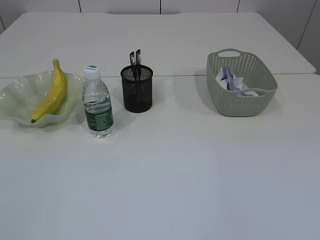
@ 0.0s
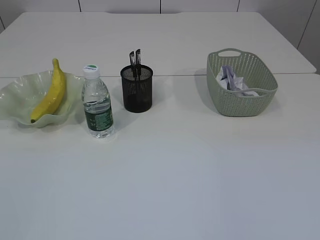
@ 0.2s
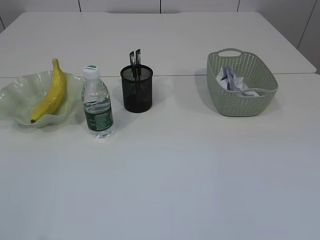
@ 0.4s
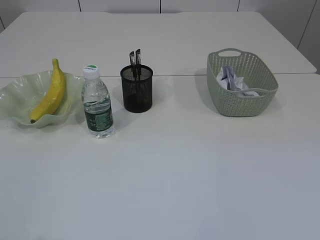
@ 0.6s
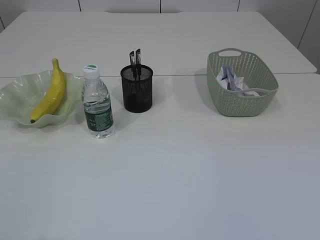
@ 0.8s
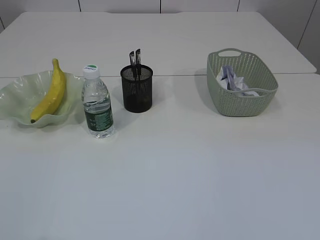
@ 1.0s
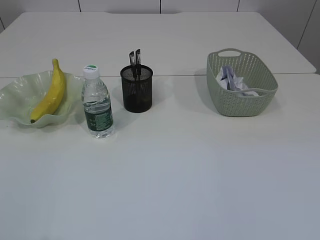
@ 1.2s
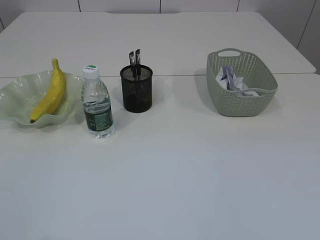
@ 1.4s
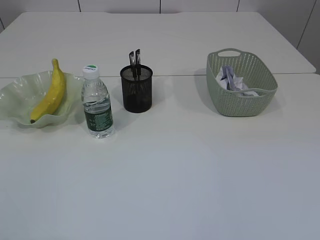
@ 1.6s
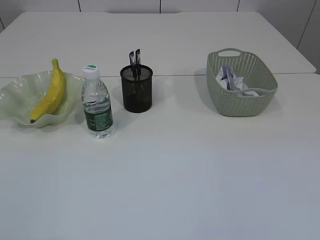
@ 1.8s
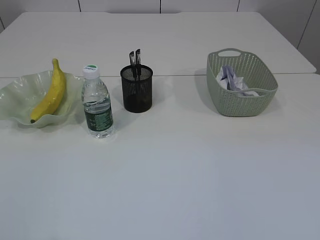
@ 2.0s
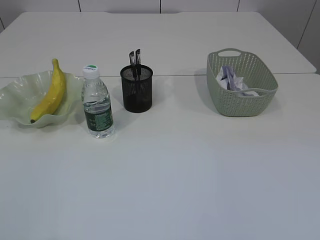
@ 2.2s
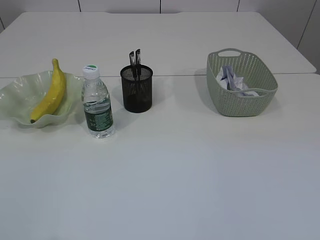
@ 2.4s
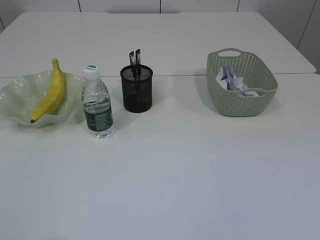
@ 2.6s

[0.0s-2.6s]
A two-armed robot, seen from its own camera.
1.2s to 2.6s: Neither gripper changes place.

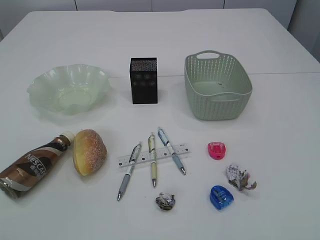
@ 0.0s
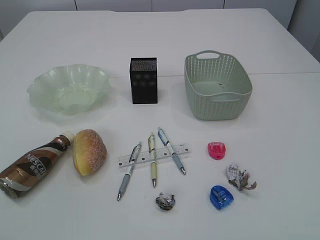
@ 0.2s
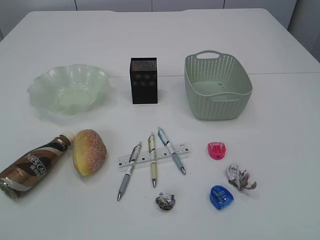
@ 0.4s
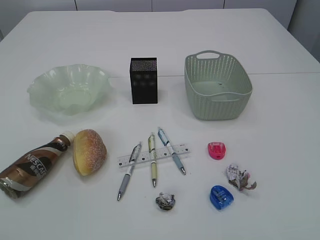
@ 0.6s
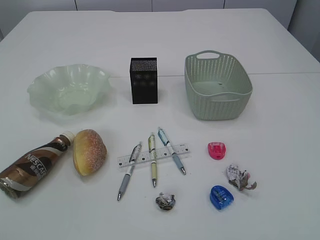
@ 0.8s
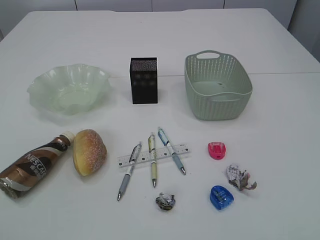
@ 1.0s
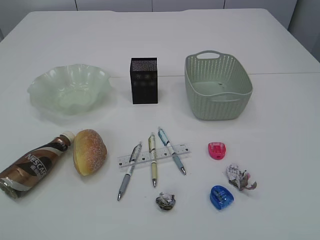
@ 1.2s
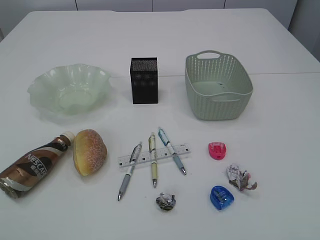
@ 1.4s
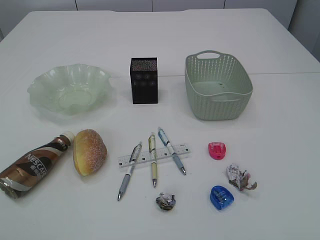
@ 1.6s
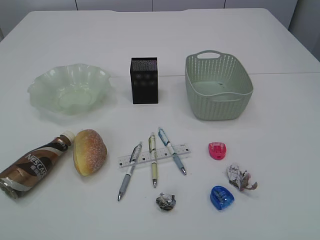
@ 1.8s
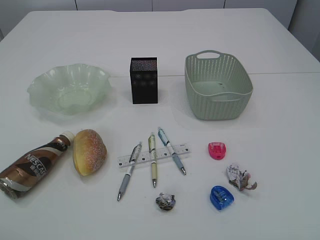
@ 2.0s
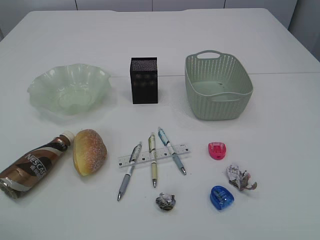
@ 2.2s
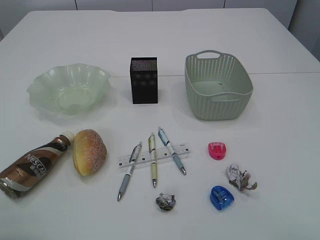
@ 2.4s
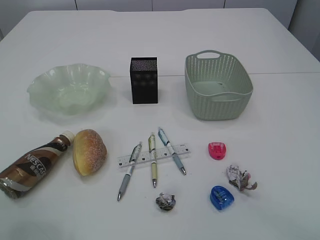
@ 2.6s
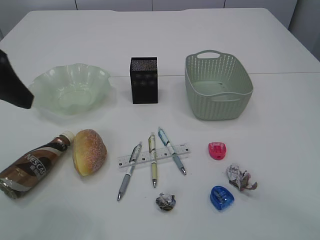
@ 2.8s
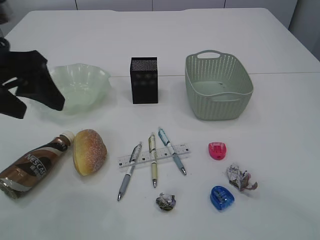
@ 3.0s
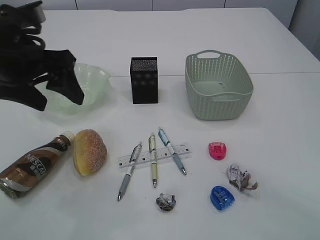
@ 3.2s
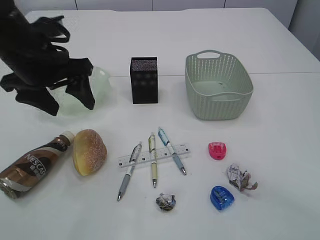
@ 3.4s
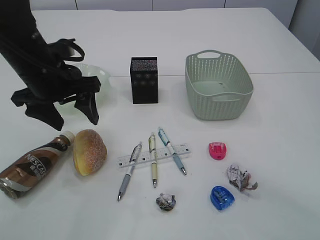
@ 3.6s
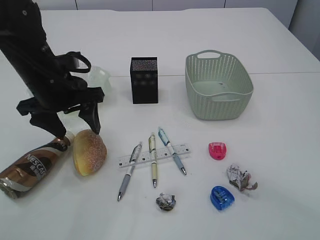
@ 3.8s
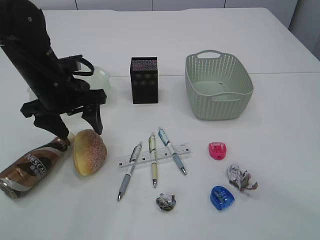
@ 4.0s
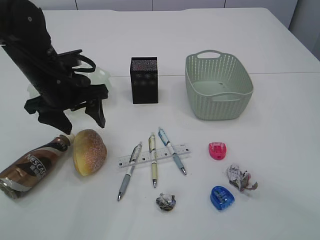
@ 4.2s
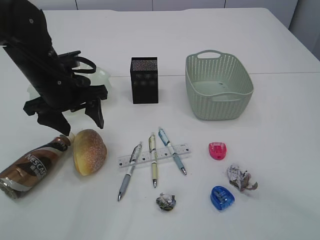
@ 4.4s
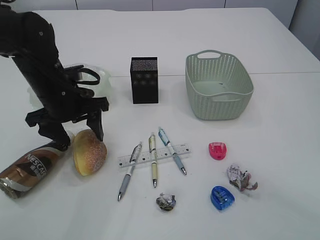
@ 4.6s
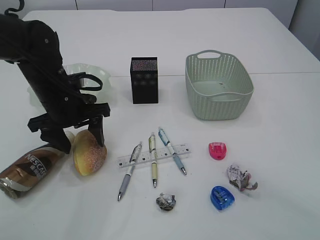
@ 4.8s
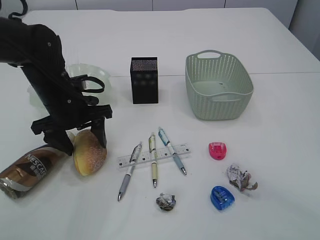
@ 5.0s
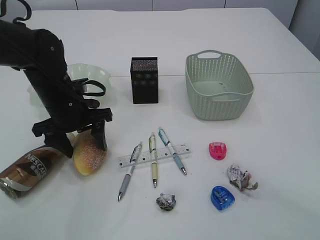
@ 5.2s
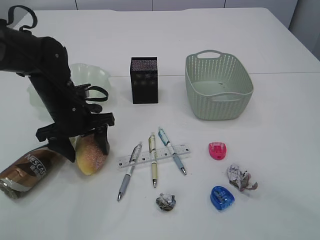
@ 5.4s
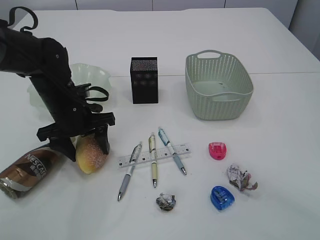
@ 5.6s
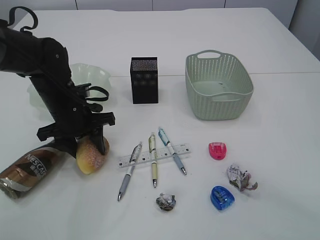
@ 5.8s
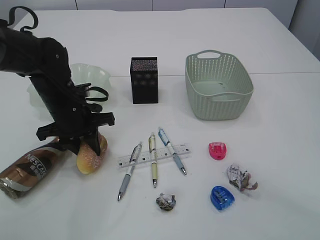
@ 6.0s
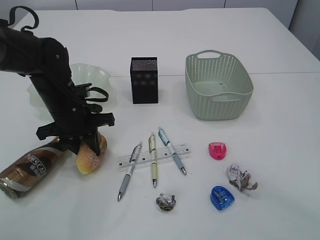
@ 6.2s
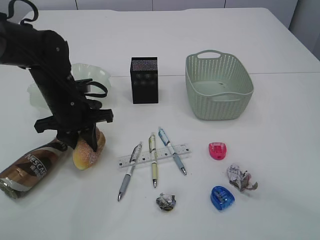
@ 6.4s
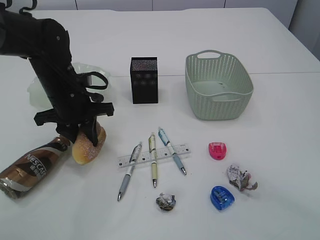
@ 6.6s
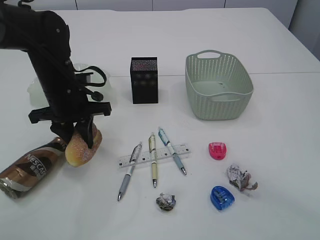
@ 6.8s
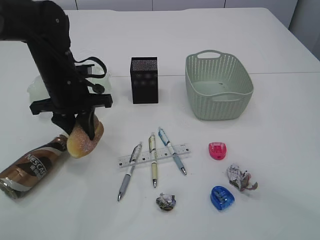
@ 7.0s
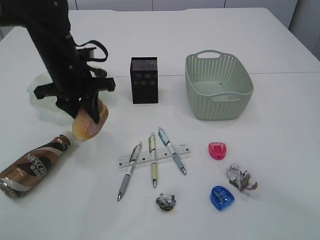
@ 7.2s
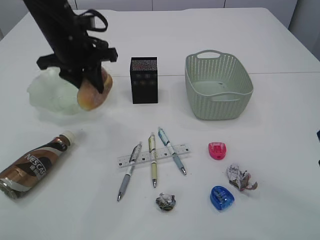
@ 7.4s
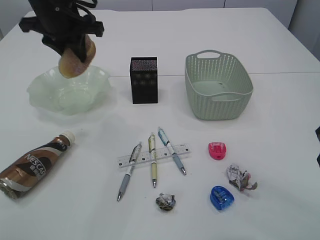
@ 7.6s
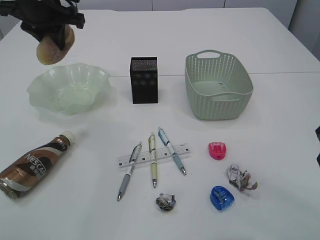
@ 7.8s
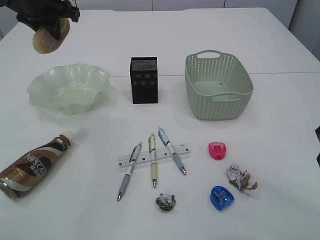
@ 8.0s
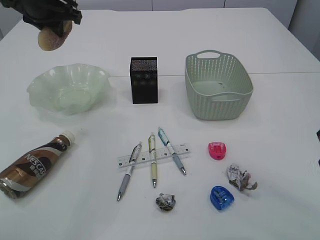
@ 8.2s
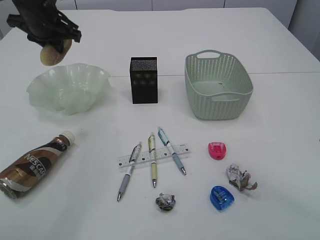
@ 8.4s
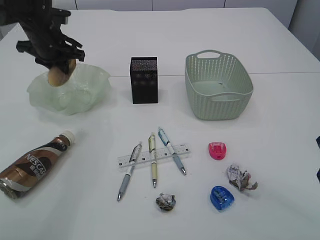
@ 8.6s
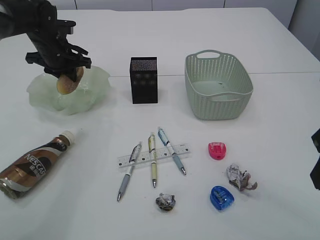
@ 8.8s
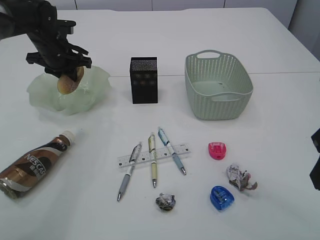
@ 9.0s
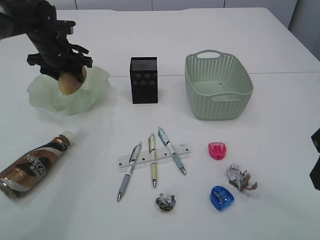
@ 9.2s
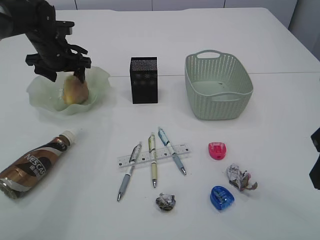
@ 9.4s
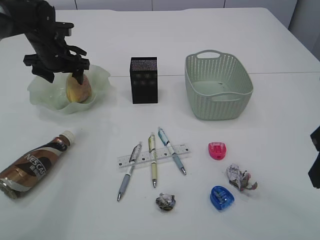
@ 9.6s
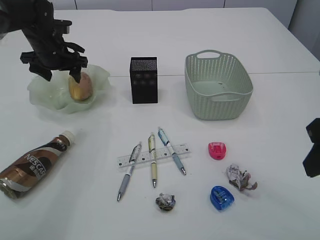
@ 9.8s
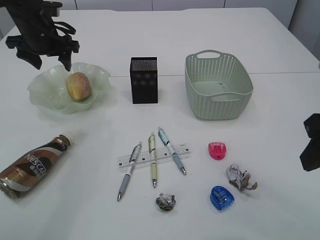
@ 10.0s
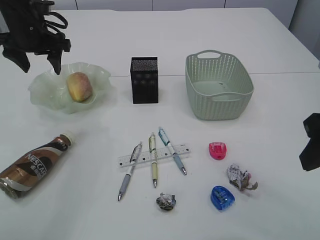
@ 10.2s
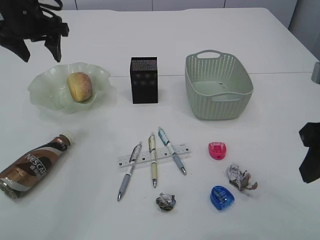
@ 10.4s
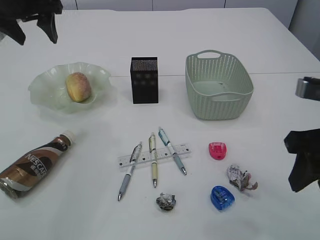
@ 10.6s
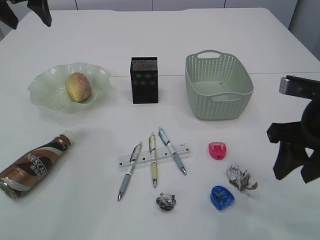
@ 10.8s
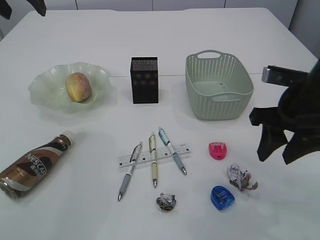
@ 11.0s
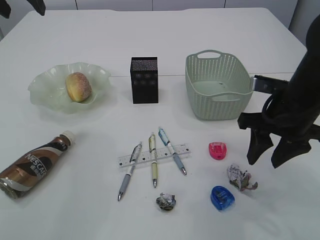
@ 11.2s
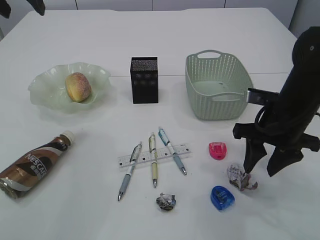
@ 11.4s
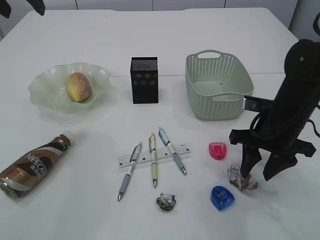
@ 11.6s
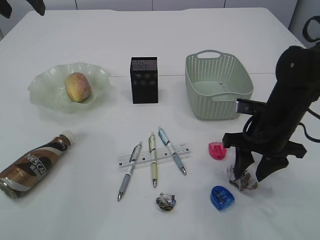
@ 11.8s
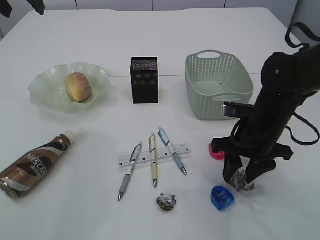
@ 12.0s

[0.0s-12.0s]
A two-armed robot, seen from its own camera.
Step, 7.4s to 10.2s: place the bread in the plate.
1.6s to 3.0s: The left gripper travels forward and to the right by about 20 cm, and opens its fingers.
3.0s to 4.4s: The left gripper goes some 15 cm downward and forward.
4.4s to 6.0s: The left gripper moves downward, approximately 5 cm, and closes up.
6.0s to 7.6s: The left gripper goes some 15 cm upward.
7.6s to 9.0s: The left gripper is displaced downward, forward and to the left by approximately 15 cm.
9.0s to 10.4s: The left gripper moves upward and backward, about 10 cm, and opens up.
10.4s to 12.0s: The right gripper is displaced downward and forward by some 20 cm; the left gripper heads upward, covering approximately 10 cm.

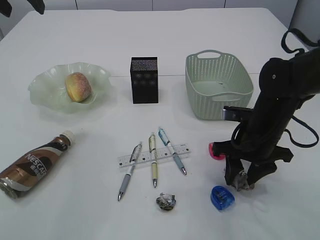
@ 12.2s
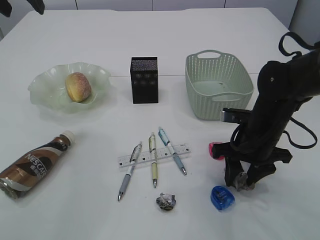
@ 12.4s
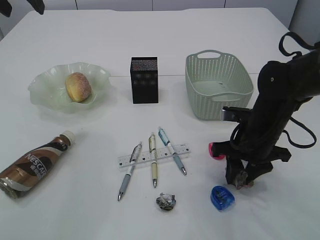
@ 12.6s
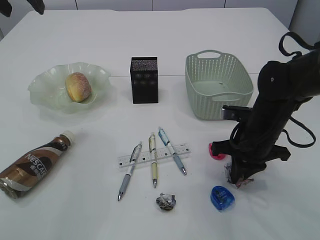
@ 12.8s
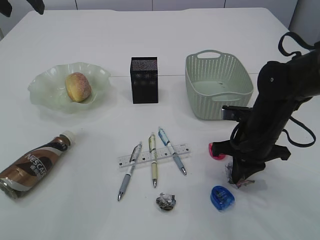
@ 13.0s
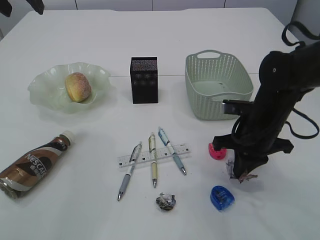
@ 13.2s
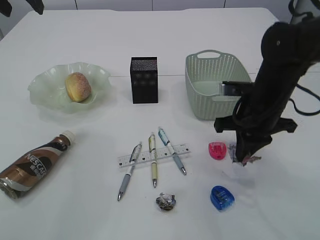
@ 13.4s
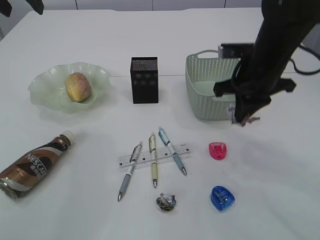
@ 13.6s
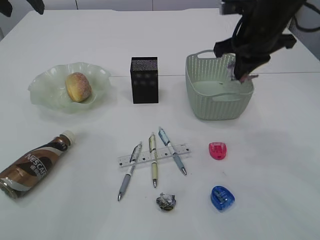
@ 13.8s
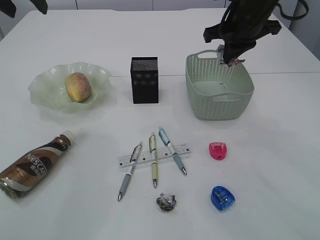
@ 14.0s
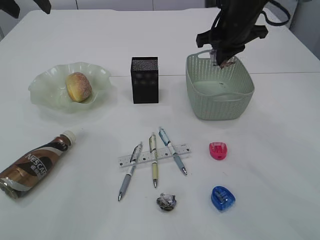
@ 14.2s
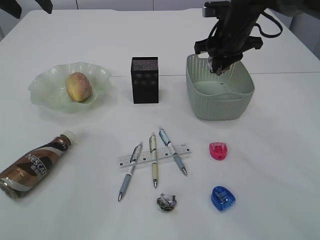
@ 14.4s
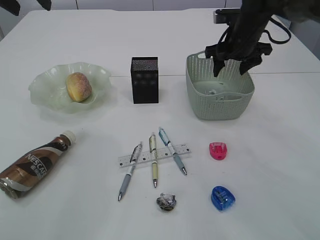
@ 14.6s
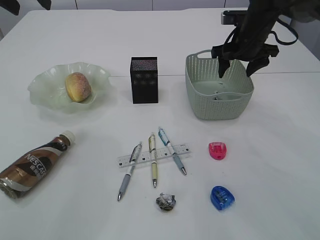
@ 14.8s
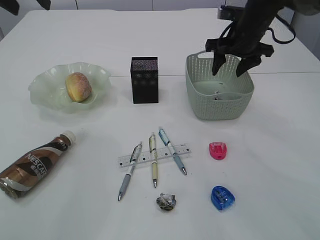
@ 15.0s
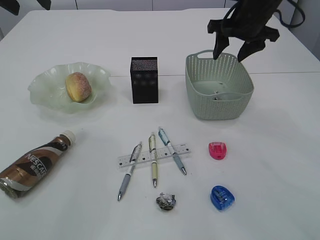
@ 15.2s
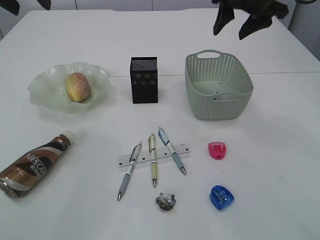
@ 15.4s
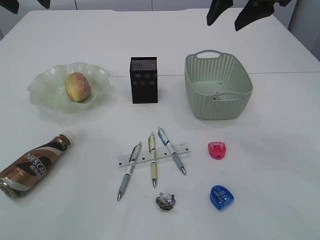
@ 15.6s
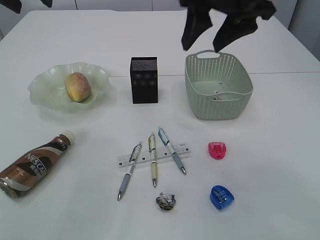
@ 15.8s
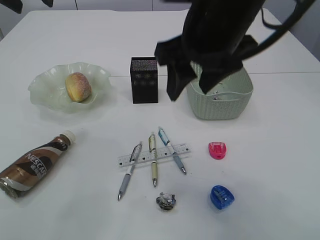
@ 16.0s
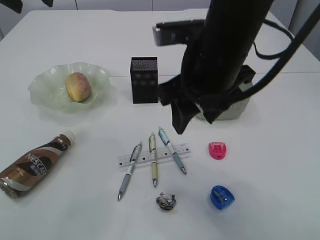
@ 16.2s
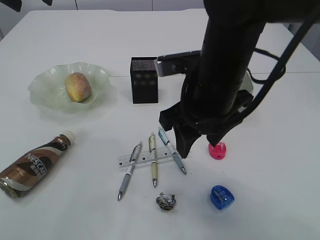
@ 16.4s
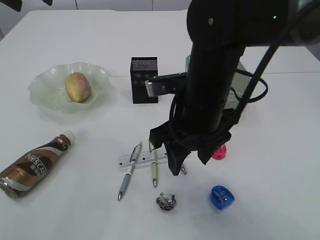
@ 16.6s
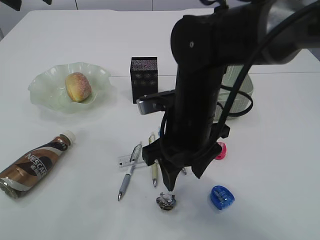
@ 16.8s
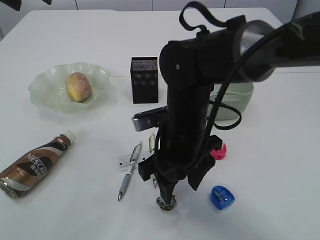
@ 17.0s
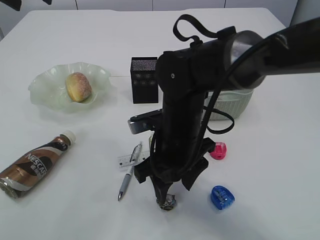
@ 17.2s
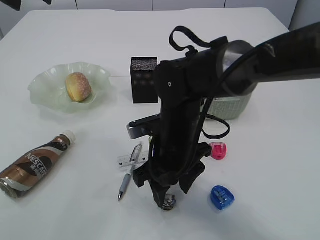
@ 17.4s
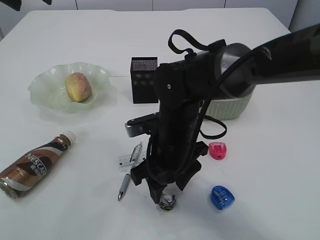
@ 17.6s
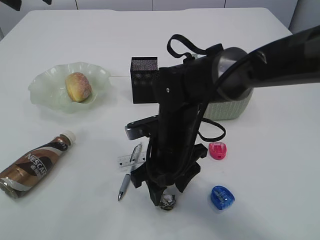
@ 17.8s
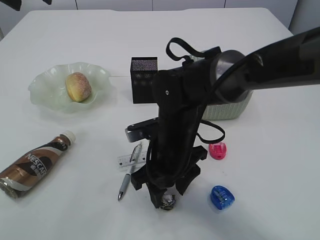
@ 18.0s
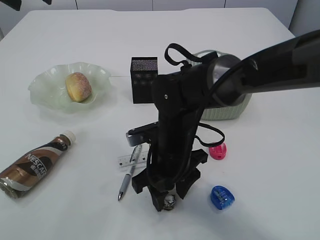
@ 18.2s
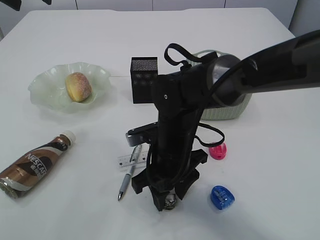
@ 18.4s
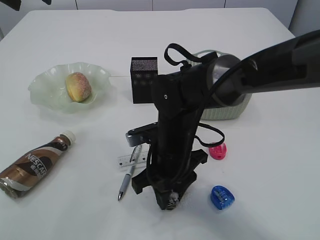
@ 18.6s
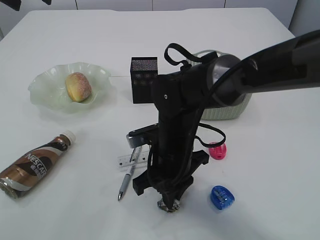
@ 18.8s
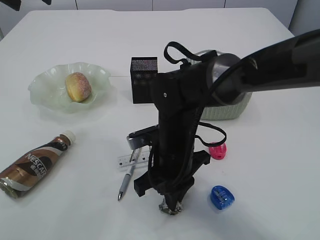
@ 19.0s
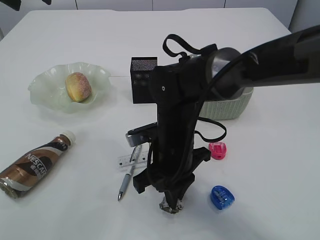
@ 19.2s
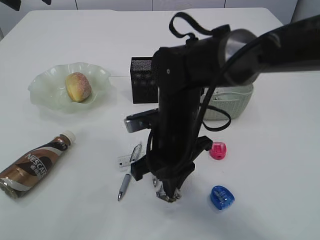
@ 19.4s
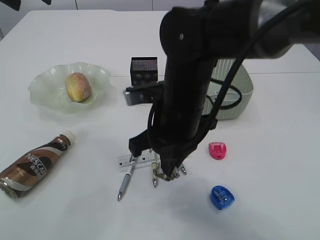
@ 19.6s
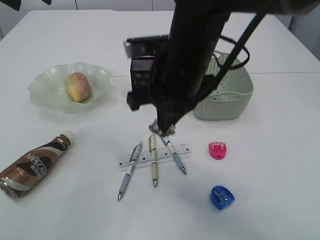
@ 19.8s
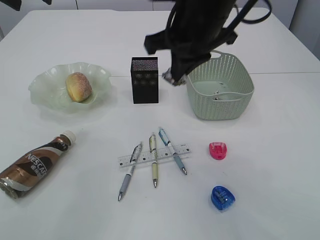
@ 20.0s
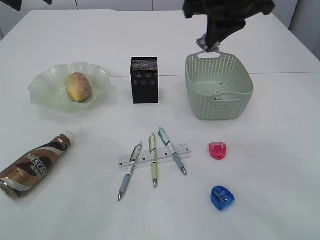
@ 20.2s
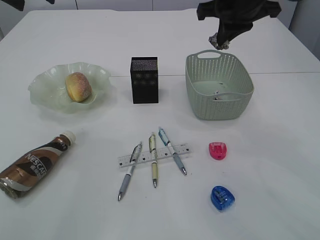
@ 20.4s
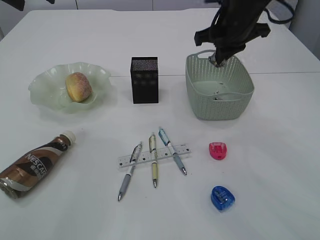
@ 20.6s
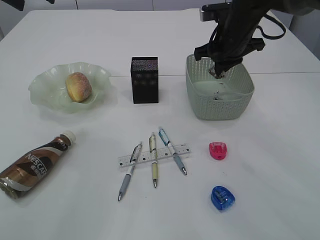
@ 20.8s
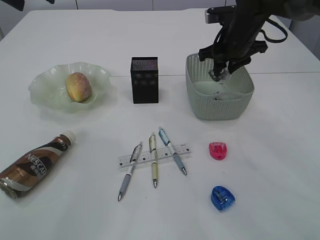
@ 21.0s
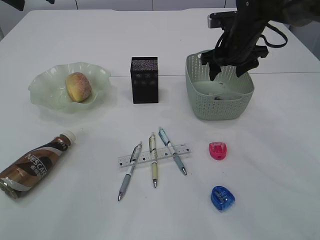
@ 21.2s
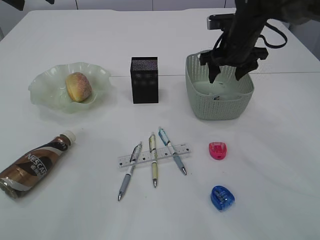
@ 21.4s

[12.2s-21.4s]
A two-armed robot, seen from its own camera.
Step, 13.6s to 15.2s: Place the waste paper in the basket.
Step, 15.4s to 19.6s: Pick up the waste paper.
12.2s to 13.8s: The right gripper is displaced upward and forward by about 15 cm, and closes.
13.8s to 15.2s: The right gripper is displaced forward by some 10 cm, and opens its fingers.
15.2s to 16.8s: The right gripper heads backward and to the left, covering roughly 25 cm.
16.8s to 18.4s: The right gripper is displaced downward by some 10 cm.
18.4s to 19.8s: The right gripper moves upward, roughly 15 cm, and closes up.
19.8s to 21.4s: The right gripper shifts roughly 25 cm forward and to the right, and opens.
